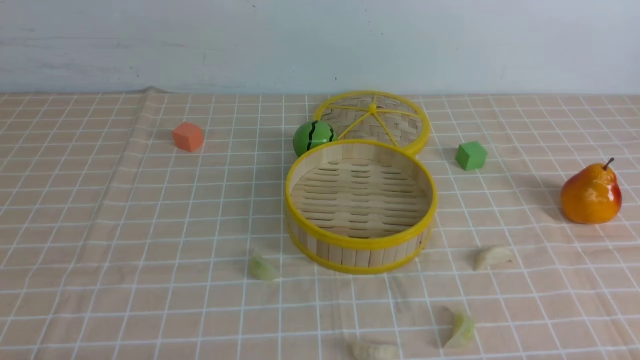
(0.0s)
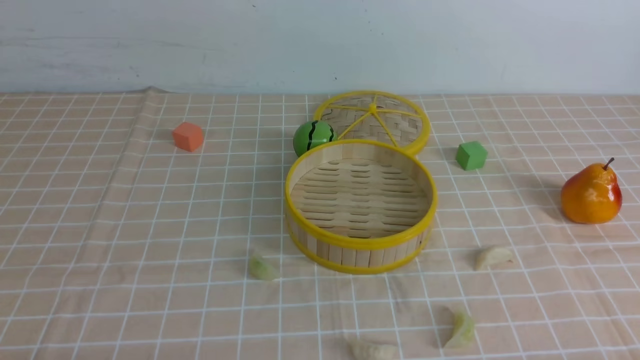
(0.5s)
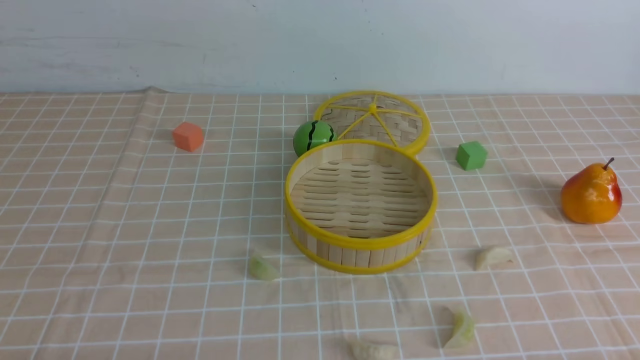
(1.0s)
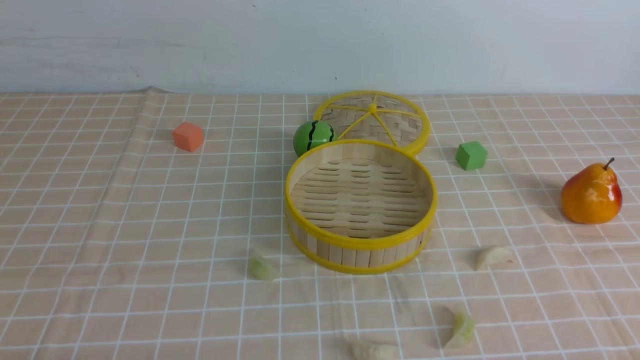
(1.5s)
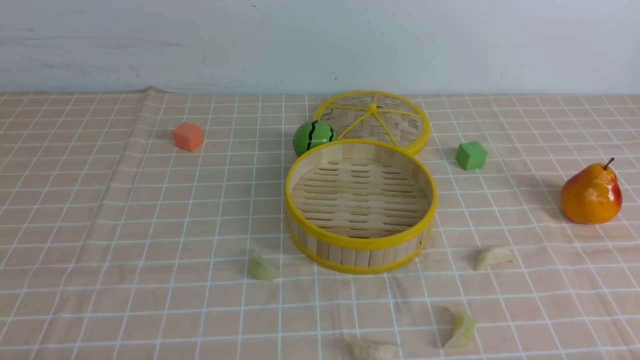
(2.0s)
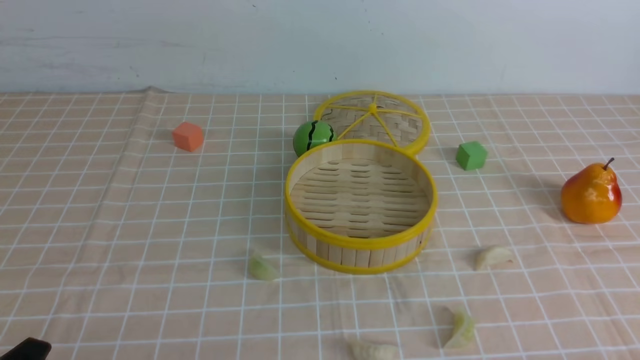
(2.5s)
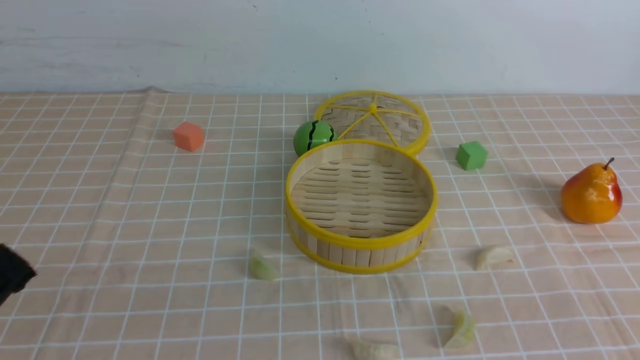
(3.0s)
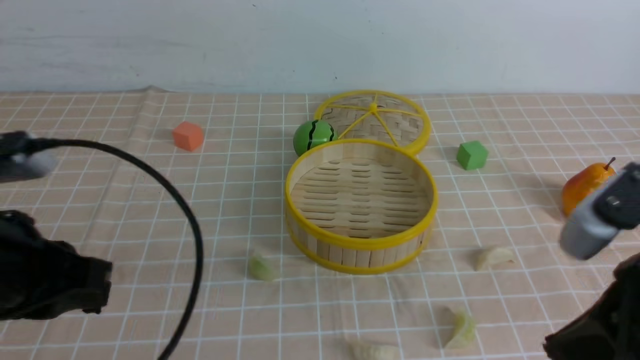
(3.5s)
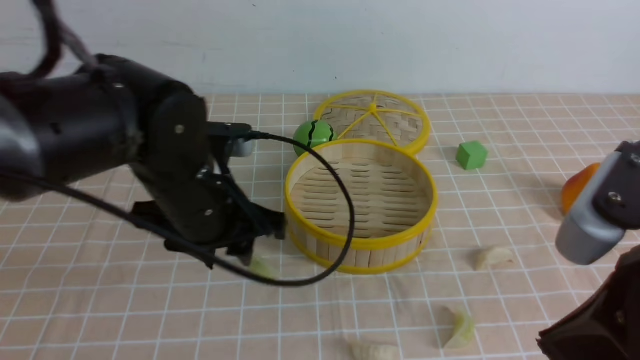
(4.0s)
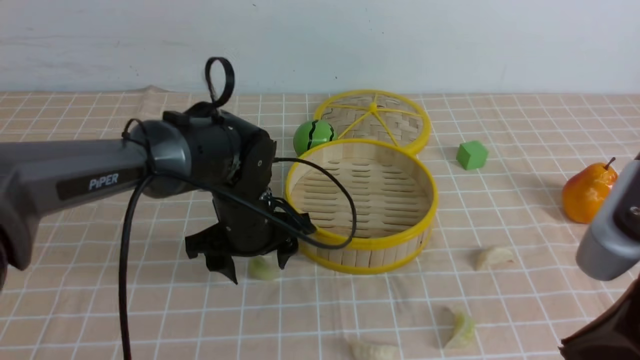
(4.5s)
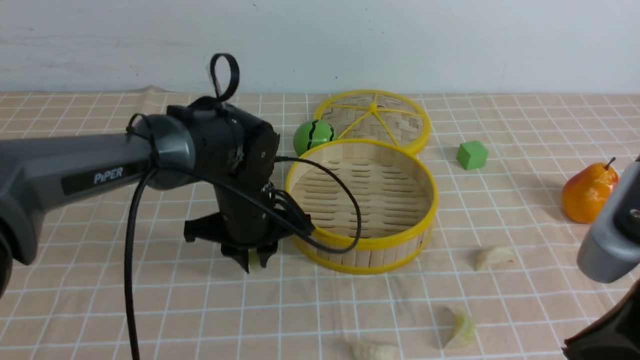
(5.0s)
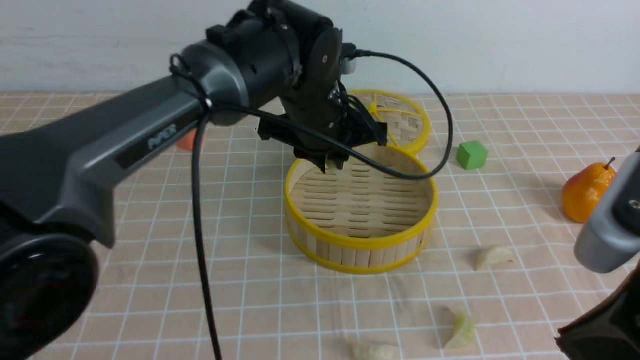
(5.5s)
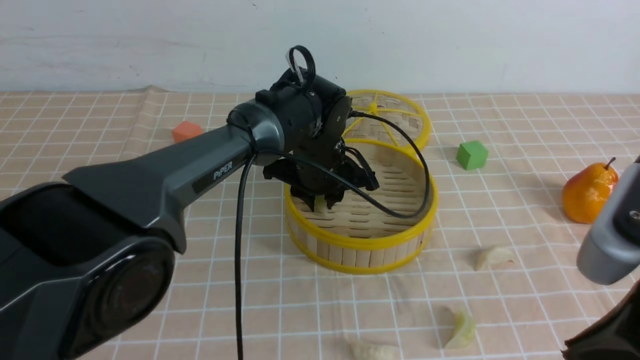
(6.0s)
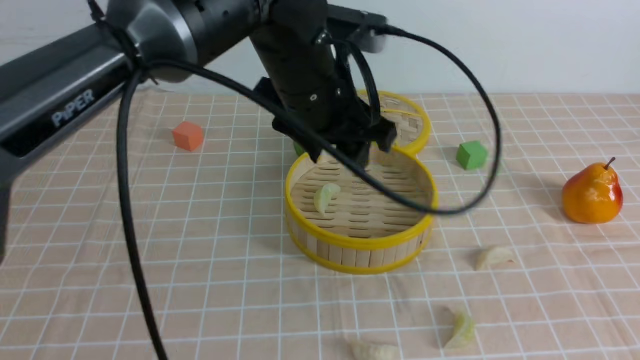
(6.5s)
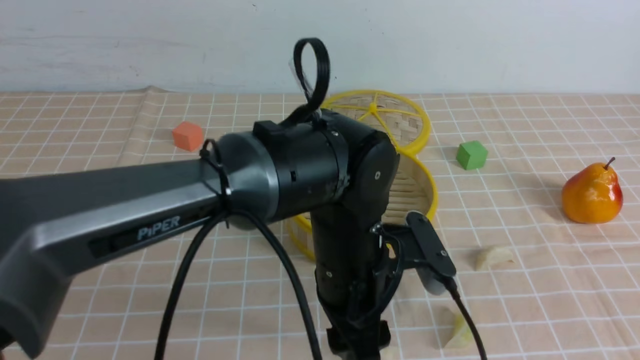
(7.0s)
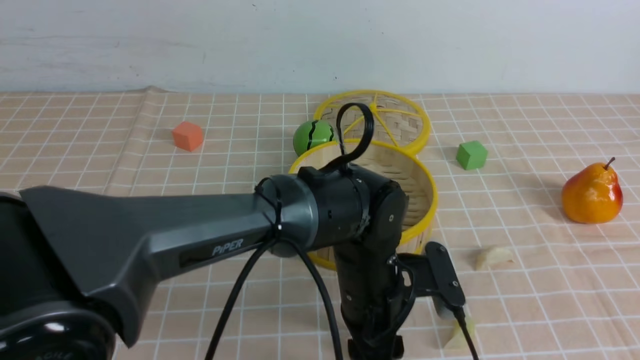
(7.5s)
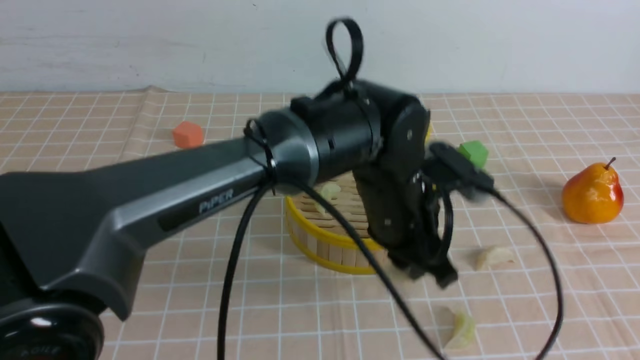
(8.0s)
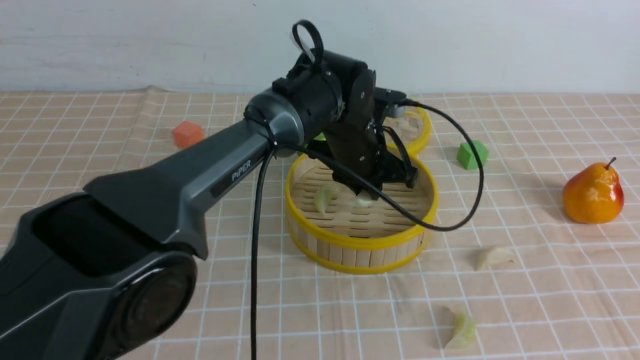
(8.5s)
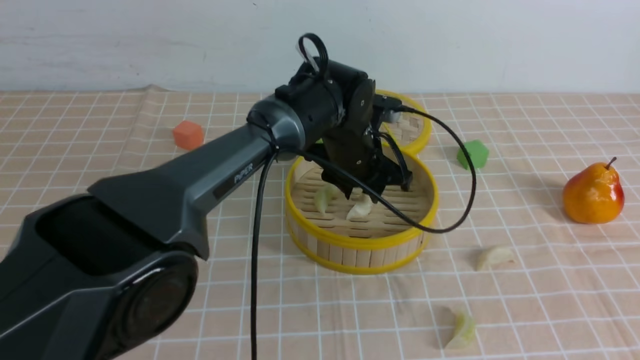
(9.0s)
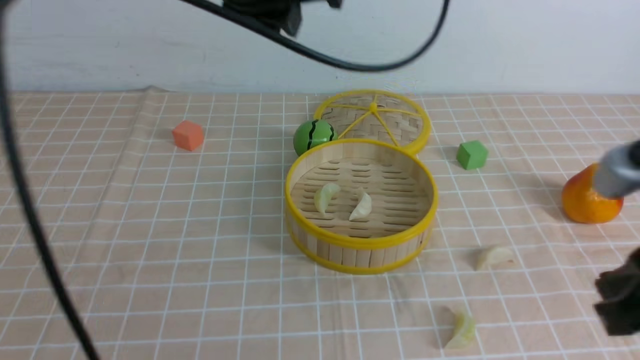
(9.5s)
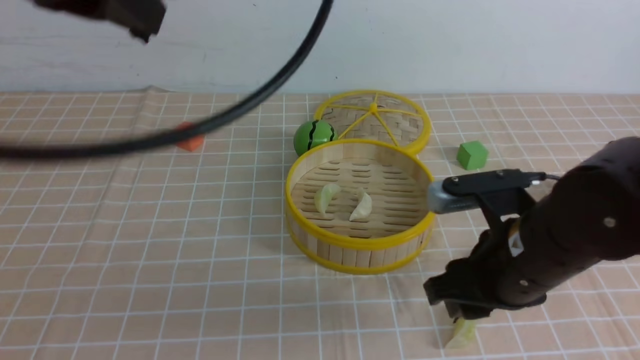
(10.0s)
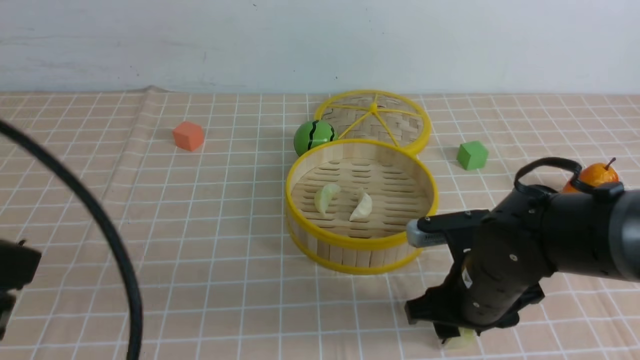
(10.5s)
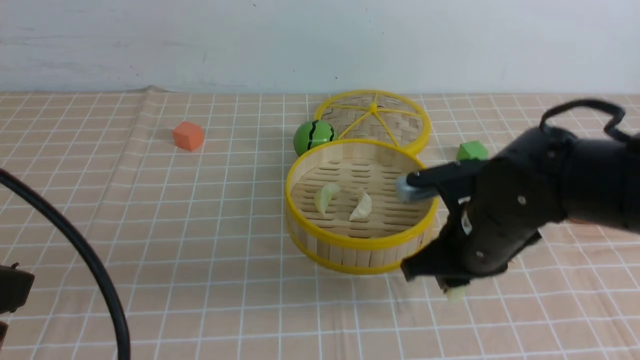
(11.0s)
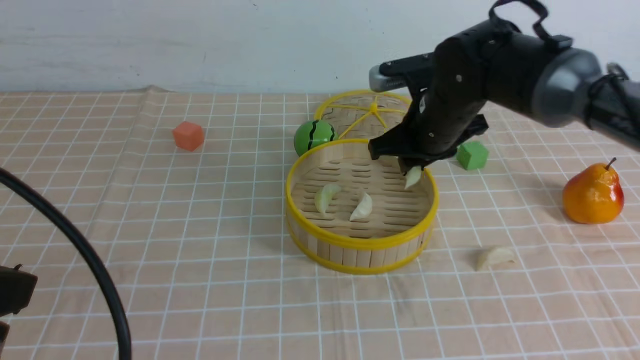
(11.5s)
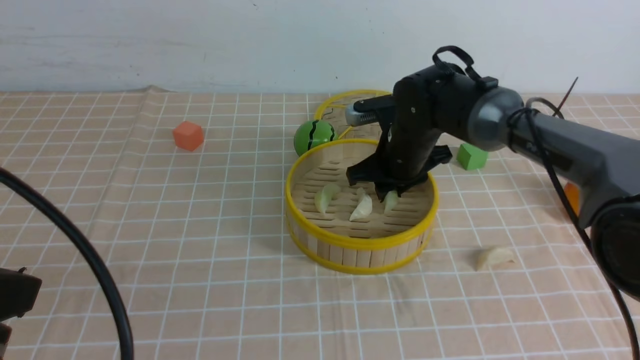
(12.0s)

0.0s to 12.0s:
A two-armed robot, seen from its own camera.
Task of the whole recording: put the dumplings into the steamer on the table with the brown tablecloth.
Step, 0.0s to 4.5s: use the left arm to grab a dumpling.
Step, 5.0s to 6.0s: use the left arm to put the dumpling into the steamer.
Step, 6.5s to 7.5s: use the left arm to grab a dumpling.
Step, 8.0s to 9.0s: use the left arm to put the dumpling into the steamer.
Step, 9.5s to 10.5s: use the right arm to grab a dumpling.
2.0s to 4.0s: The right gripper is displaced upward, to the left and forward by some 20 cm, and closes its fingers, while the left gripper is displaced forward, to the right and upward by approximately 30 cm, and closes, then opens again.
4.0s to 6.0s: The left gripper travels forward, to the right and downward by some 20 cm, and opens, then closes once more.
6.0s to 8.0s: The right gripper moves to the right and backward, some 10 cm. The left gripper goes about 15 cm backward and to the right, and opens and closes again.
8.0s to 10.0s: The left gripper shifts roughly 35 cm upward and to the left, and closes its fingers; the right gripper travels forward, downward and to the left by some 25 cm.
10.0s to 12.0s: The left gripper heads backward, downward and to the left, covering roughly 20 cm; the right gripper travels forward by approximately 25 cm.

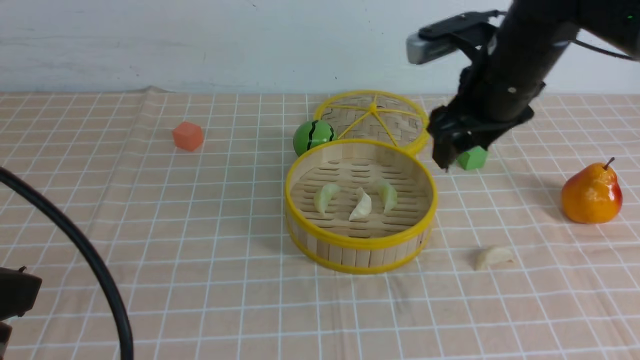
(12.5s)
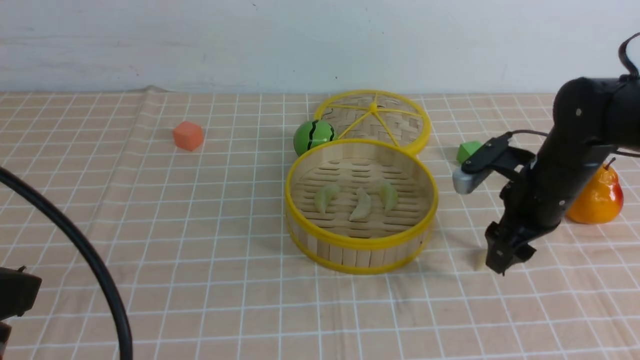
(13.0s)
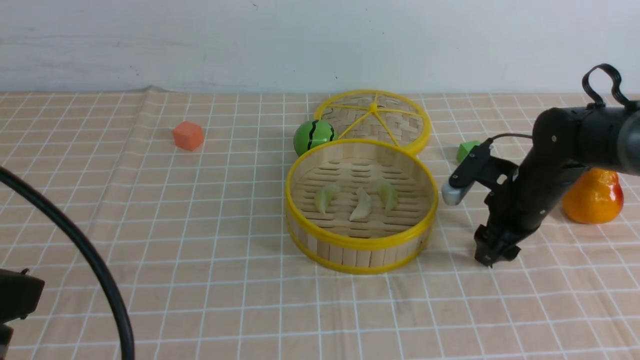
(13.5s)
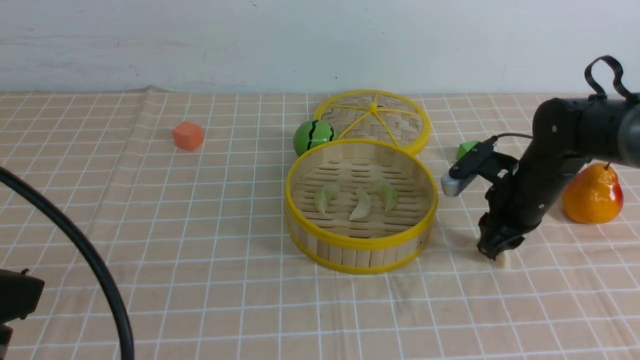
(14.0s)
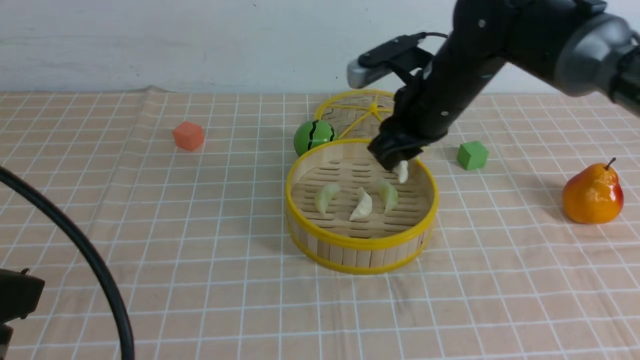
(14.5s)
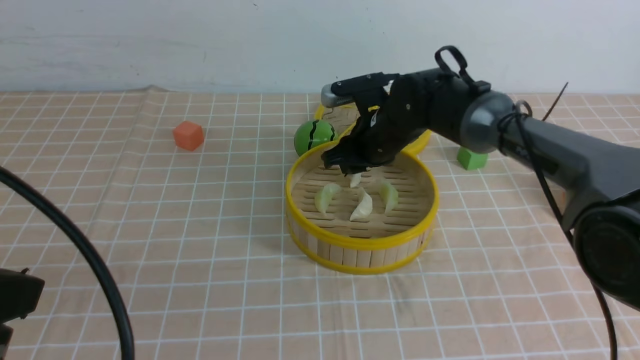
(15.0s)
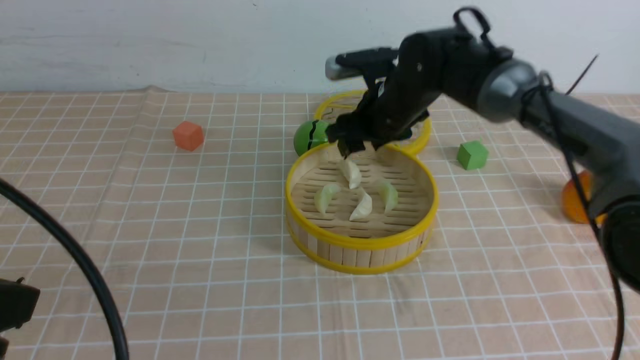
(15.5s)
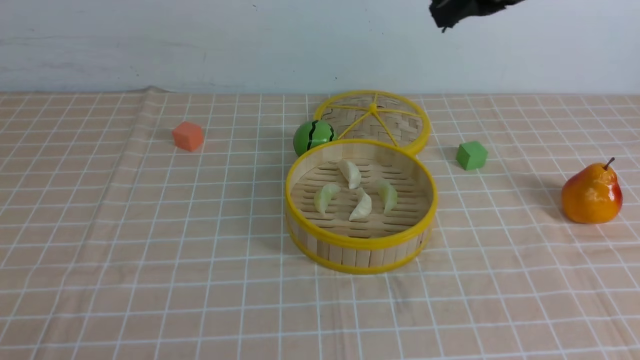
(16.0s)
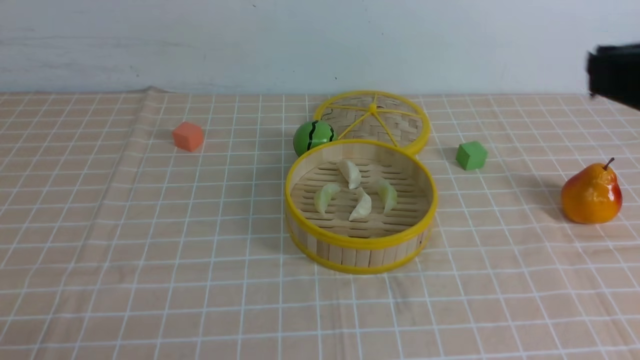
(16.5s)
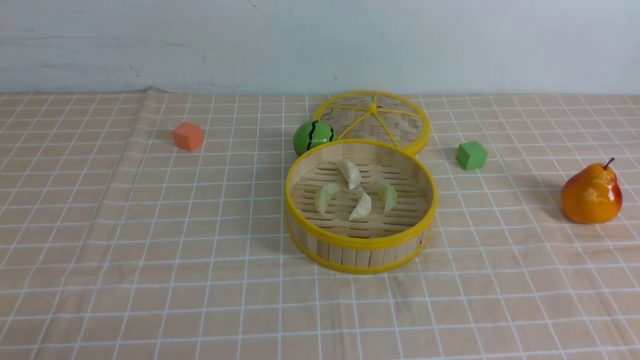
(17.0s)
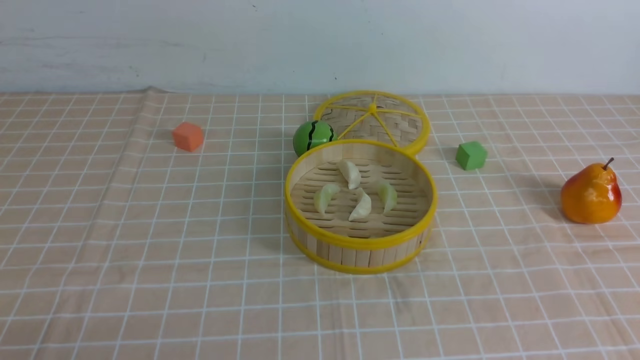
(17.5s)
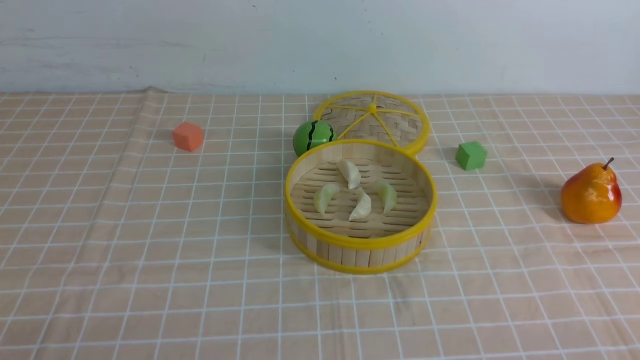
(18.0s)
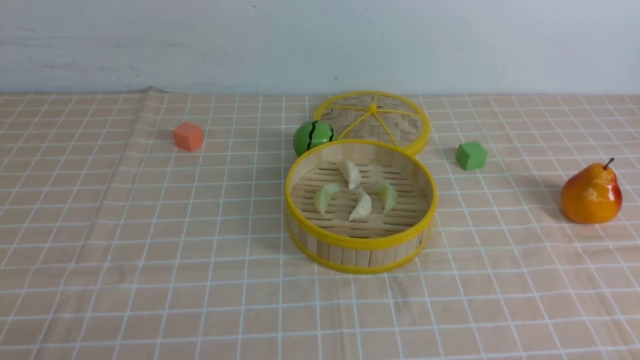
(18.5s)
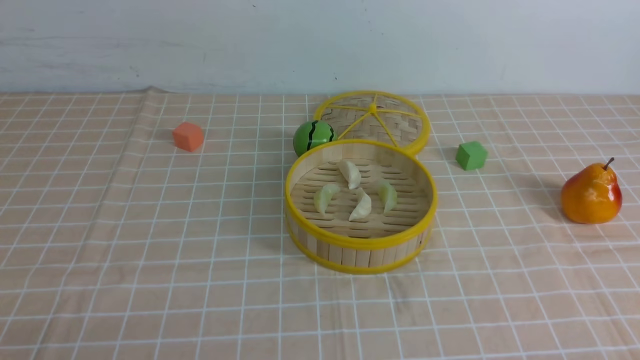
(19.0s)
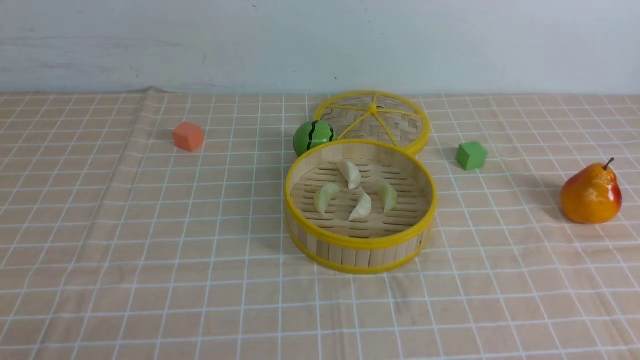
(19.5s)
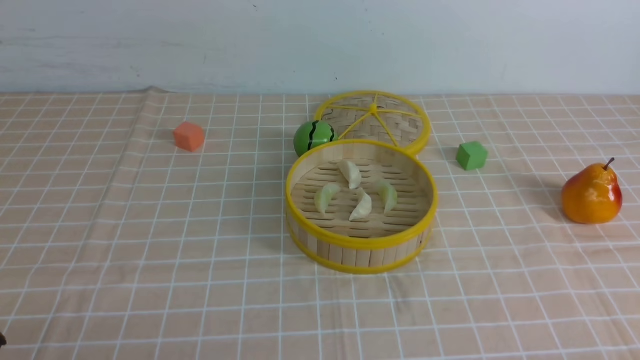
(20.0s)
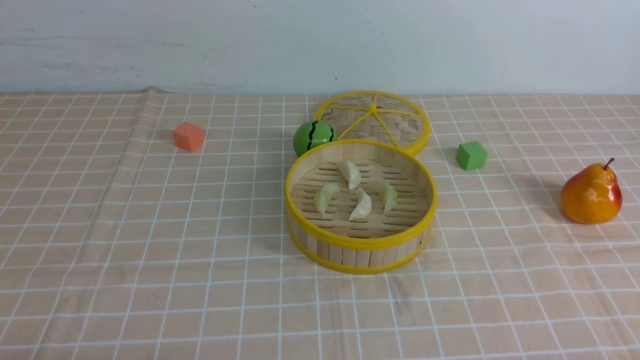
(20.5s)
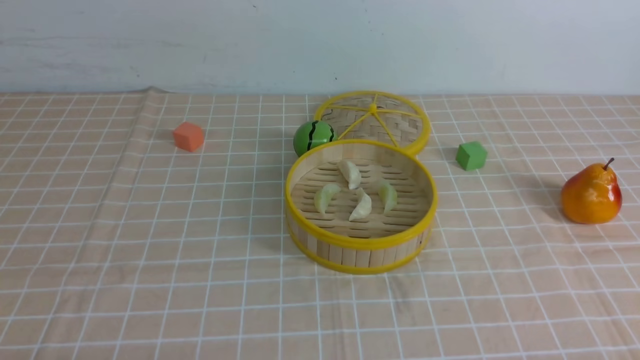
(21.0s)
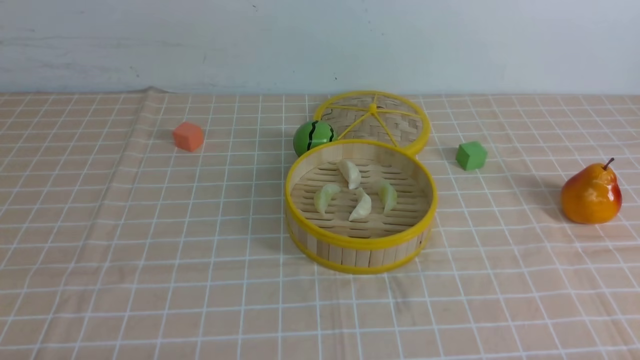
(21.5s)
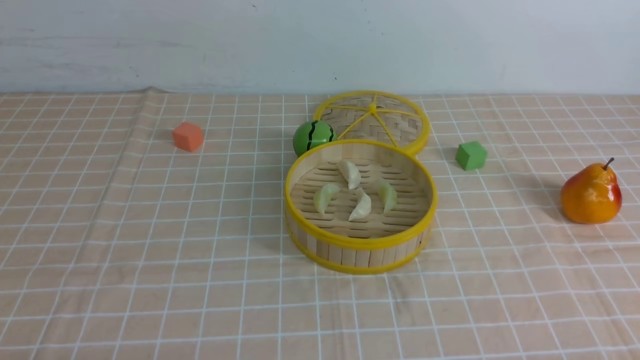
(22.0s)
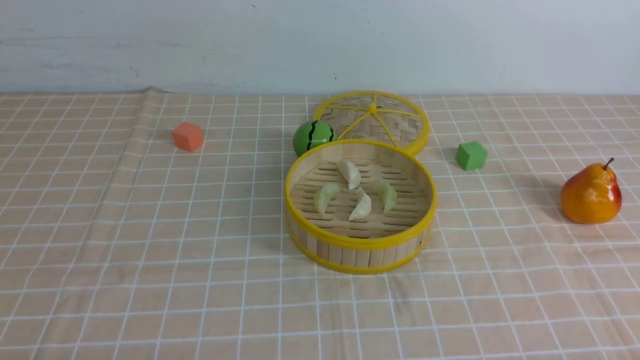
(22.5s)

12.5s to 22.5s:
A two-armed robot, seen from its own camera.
Task of the whole recording: put the dumplings into the steamer on the table with the brown tablecloth.
Step, 12.5s to 13.5s: use the right arm to grab a dumpling.
Step, 14.0s to 15.5s: use the right arm to put the dumpling into the steamer.
12.5s to 14.5s: The right gripper reaches about 15 cm downward, then returns, and closes its fingers.
14.5s to 16.5s: The right gripper heads backward and upward, covering roughly 30 cm, and closes up; the left gripper goes about 15 cm downward, backward and to the left.
16.5s to 18.5s: The right gripper moves downward, about 30 cm.
